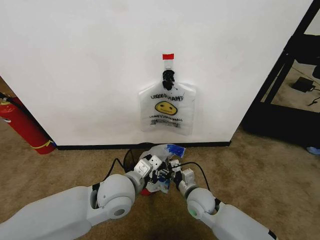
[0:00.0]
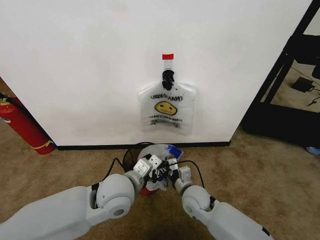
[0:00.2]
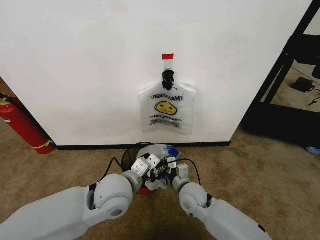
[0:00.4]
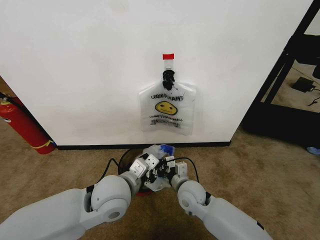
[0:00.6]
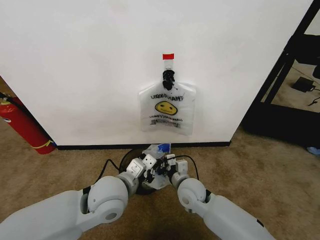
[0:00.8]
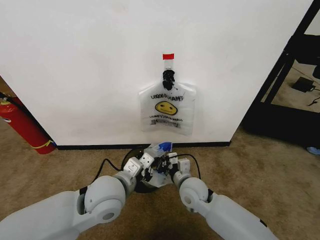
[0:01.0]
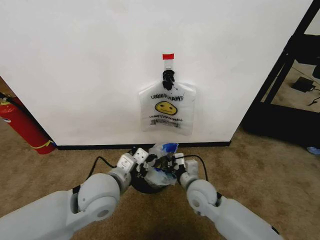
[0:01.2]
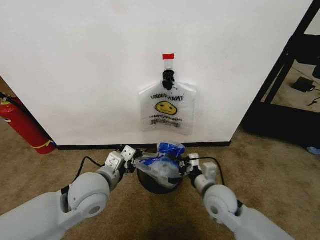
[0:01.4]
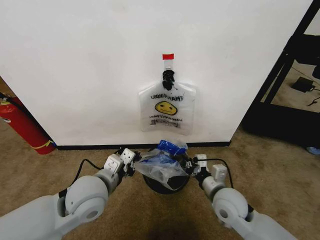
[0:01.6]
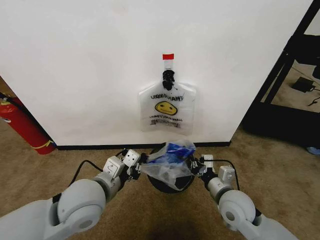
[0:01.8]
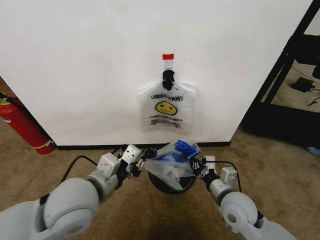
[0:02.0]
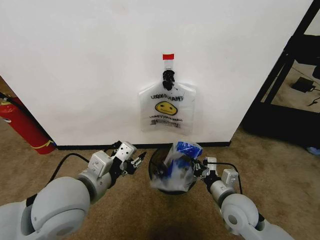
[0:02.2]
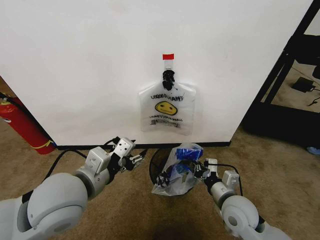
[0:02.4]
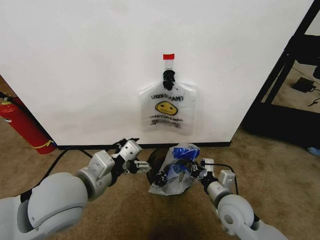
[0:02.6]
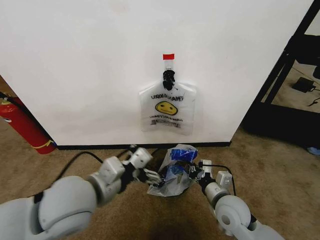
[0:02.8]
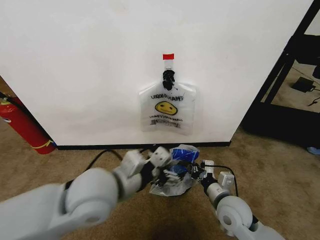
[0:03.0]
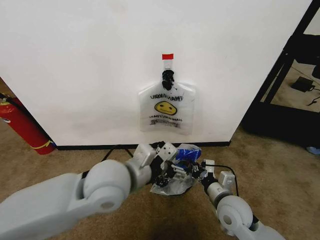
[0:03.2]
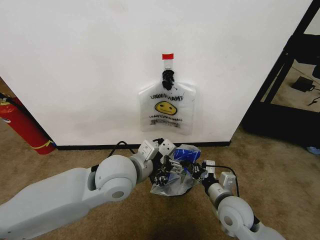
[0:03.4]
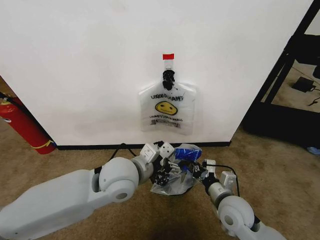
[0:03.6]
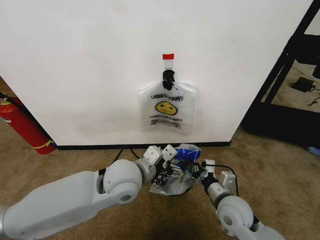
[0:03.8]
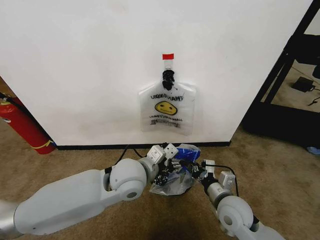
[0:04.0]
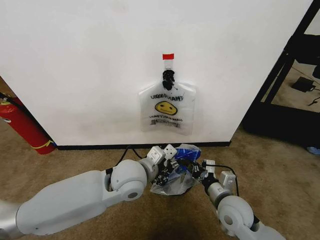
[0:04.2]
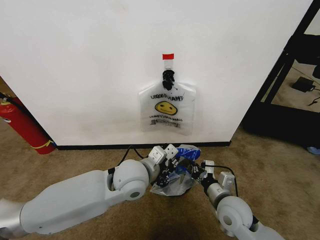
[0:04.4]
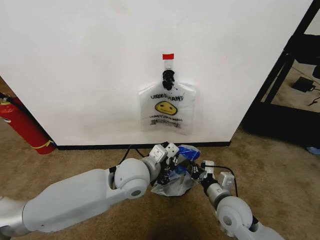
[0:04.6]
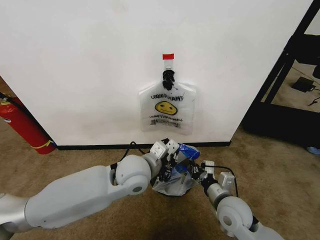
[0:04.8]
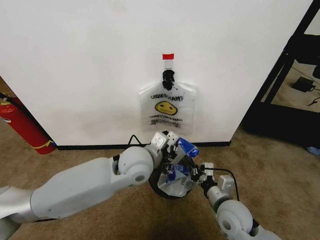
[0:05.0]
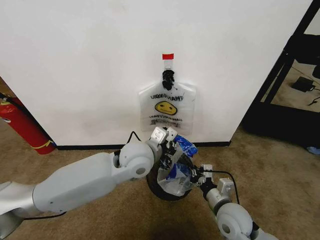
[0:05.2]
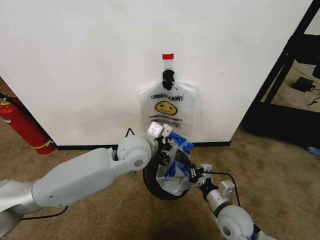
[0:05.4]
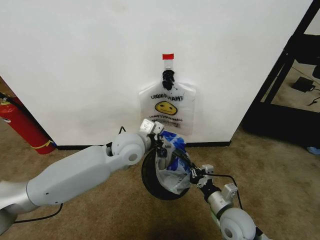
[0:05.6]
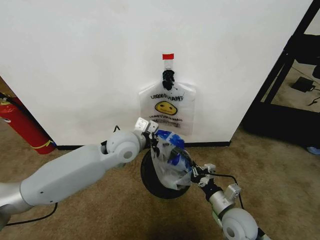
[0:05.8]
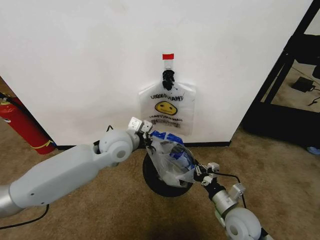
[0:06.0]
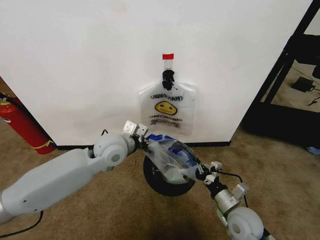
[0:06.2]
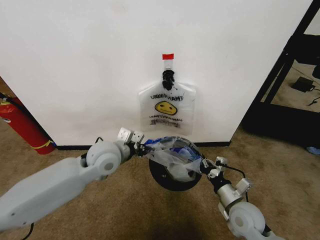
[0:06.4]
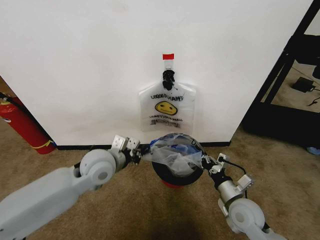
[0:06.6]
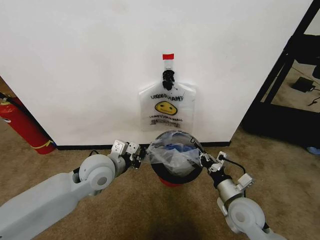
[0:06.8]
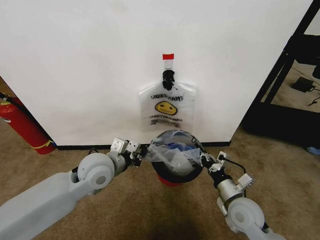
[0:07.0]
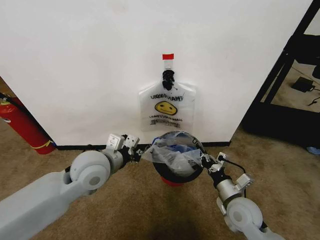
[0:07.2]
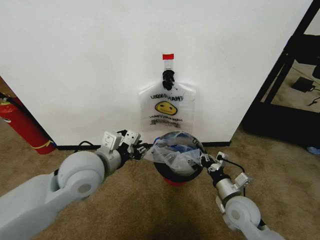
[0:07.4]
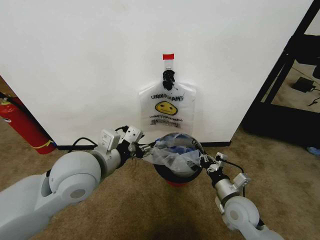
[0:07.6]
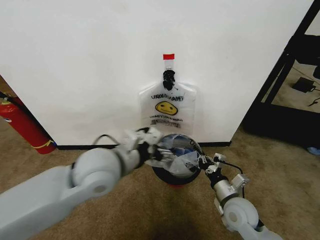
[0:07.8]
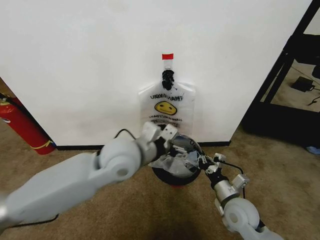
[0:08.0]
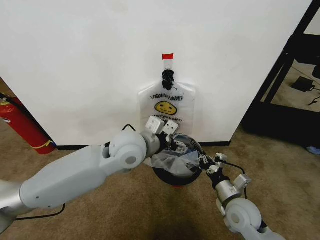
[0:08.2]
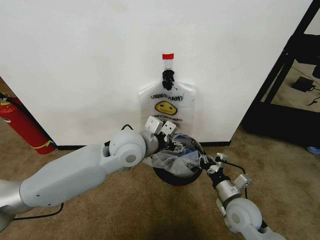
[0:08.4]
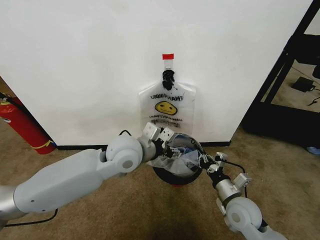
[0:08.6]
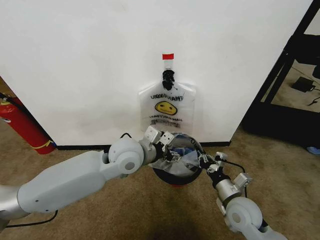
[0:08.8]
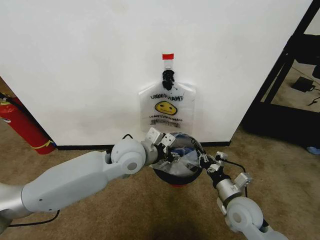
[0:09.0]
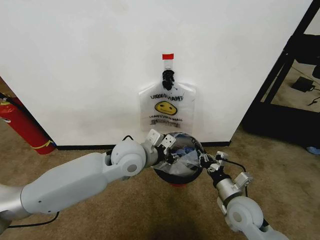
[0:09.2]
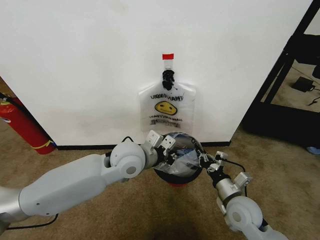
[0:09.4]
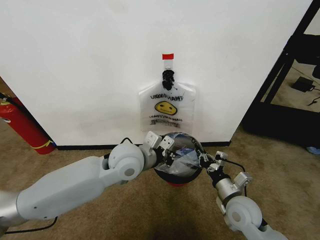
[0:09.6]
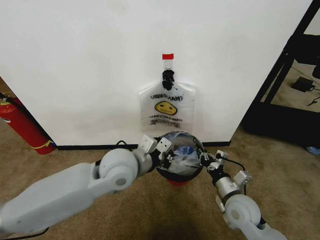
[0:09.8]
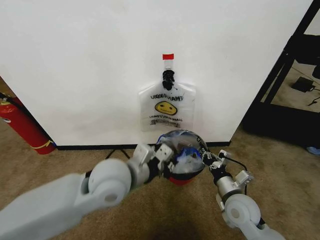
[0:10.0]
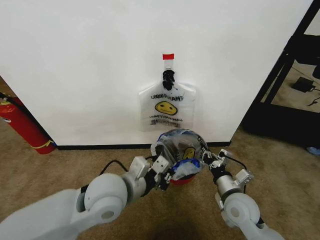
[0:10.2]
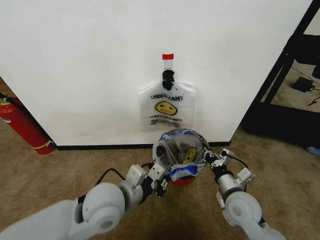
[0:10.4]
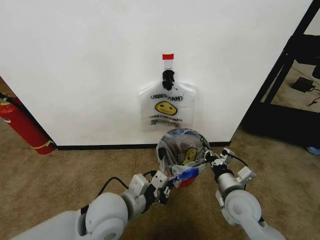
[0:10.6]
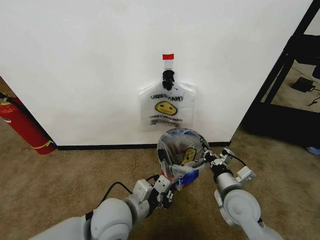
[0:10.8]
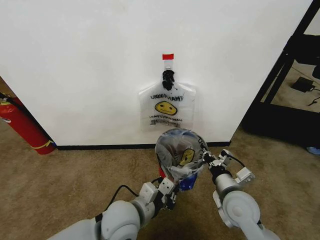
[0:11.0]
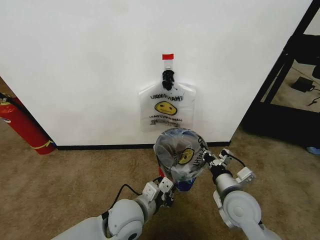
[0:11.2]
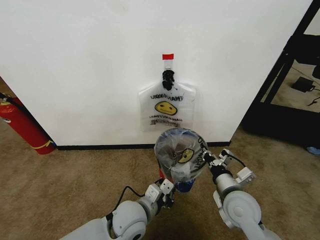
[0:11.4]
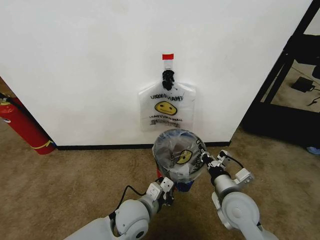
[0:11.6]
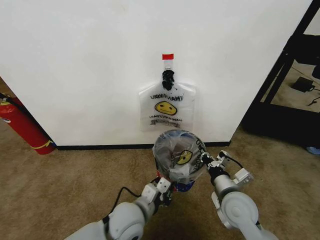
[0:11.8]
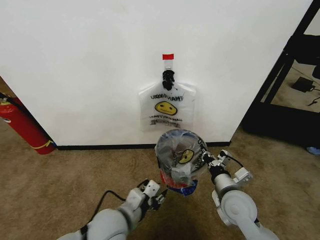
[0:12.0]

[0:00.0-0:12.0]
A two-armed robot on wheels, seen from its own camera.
Task of the whole recording: Pick up the garbage bag from the wall and place it over the trash bin.
0:00.0 to 0:01.6: The left gripper moves to the left, some 5 cm; the right gripper goes about 10 cm upward and to the right, and closes its fingers.
0:01.6 to 0:03.0: The left gripper shifts approximately 5 cm upward, and opens up.
0:03.0 to 0:04.4: The left gripper goes approximately 10 cm downward, forward and to the right, and closes up.
0:04.4 to 0:06.0: The right gripper changes place by about 5 cm. Meanwhile the left gripper heads forward and to the left, covering roughly 10 cm.
0:06.0 to 0:07.6: The left gripper is displaced backward and upward by approximately 15 cm, and opens.
0:07.6 to 0:09.0: The left gripper goes roughly 15 cm forward, to the right and downward, and opens, then closes once more.
0:09.0 to 0:10.4: The left gripper goes some 10 cm backward, and closes.
0:10.4 to 0:12.0: The left gripper travels downward by approximately 5 cm, and opens.

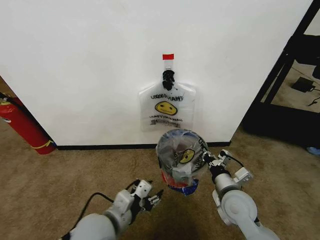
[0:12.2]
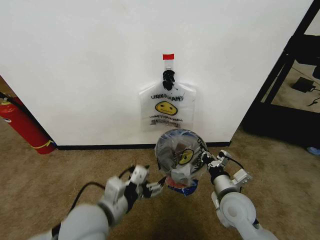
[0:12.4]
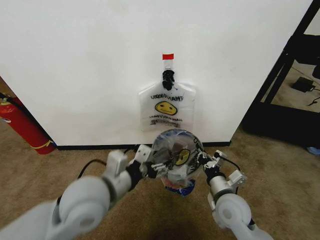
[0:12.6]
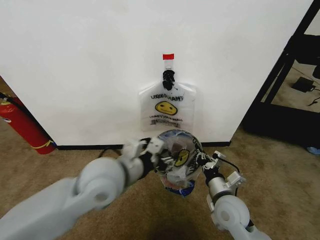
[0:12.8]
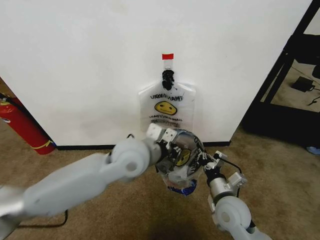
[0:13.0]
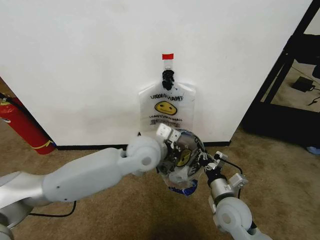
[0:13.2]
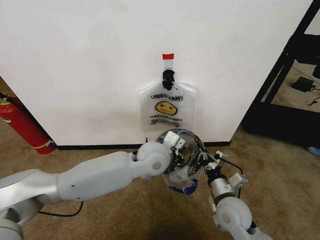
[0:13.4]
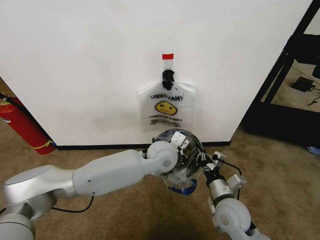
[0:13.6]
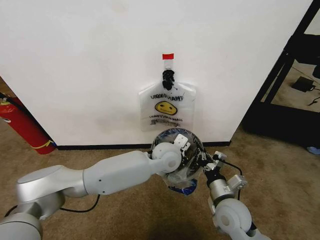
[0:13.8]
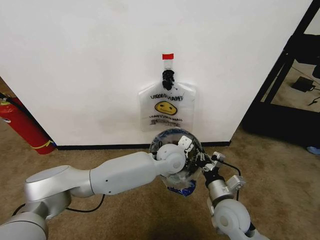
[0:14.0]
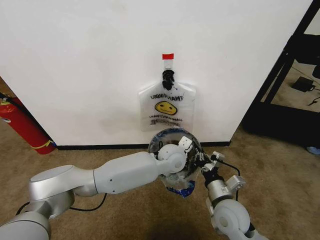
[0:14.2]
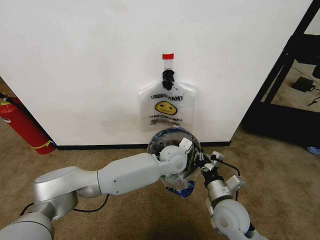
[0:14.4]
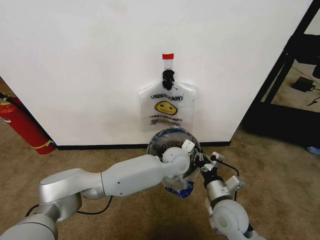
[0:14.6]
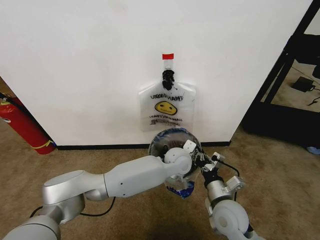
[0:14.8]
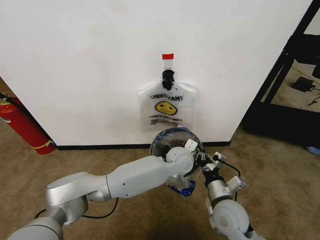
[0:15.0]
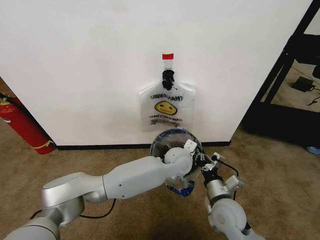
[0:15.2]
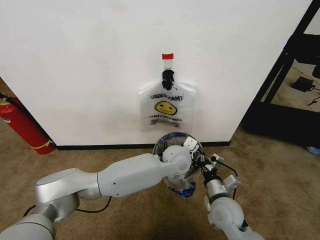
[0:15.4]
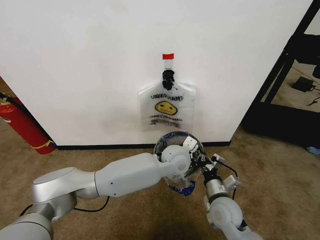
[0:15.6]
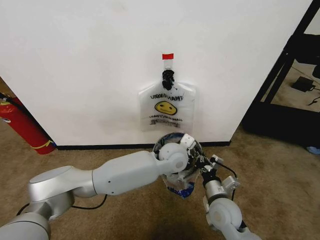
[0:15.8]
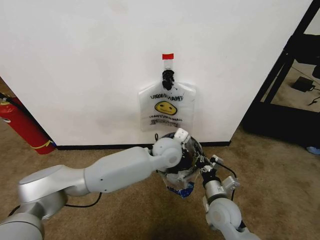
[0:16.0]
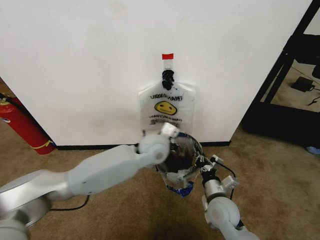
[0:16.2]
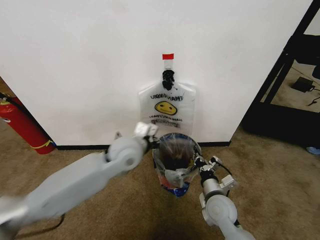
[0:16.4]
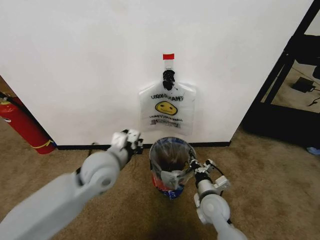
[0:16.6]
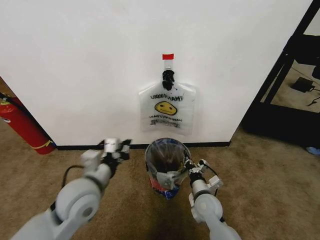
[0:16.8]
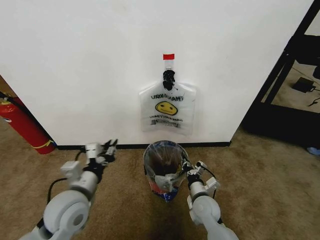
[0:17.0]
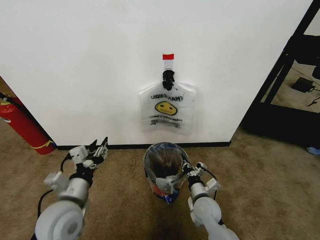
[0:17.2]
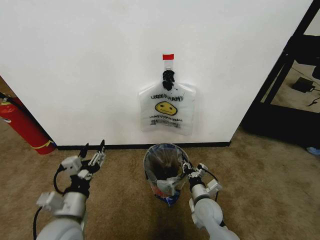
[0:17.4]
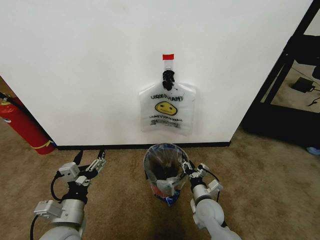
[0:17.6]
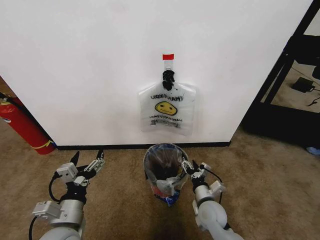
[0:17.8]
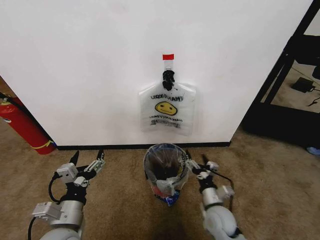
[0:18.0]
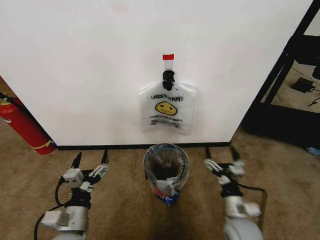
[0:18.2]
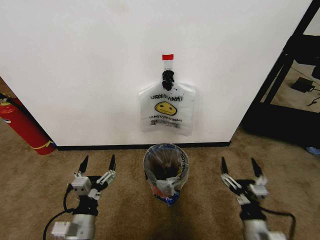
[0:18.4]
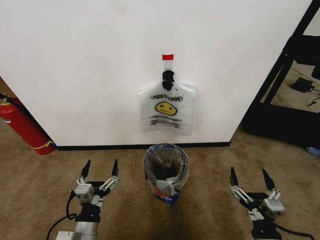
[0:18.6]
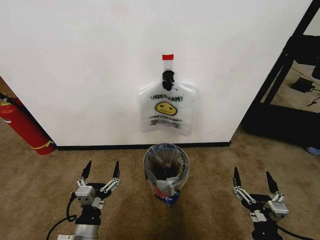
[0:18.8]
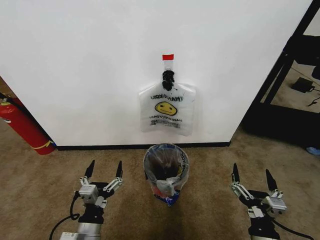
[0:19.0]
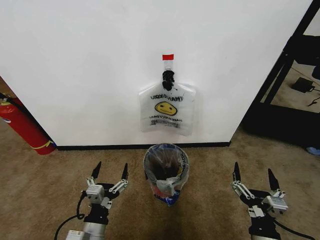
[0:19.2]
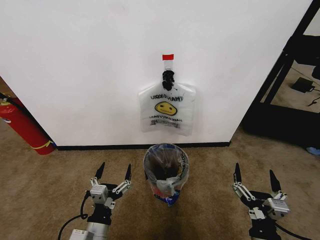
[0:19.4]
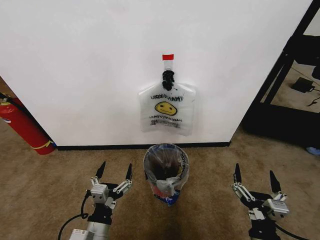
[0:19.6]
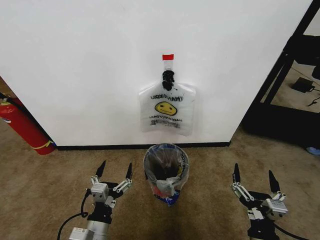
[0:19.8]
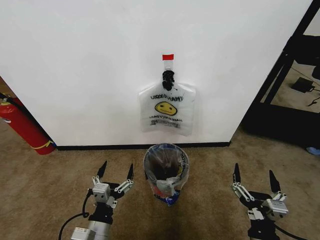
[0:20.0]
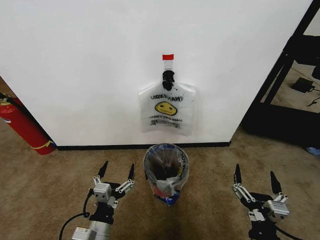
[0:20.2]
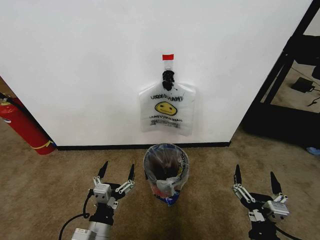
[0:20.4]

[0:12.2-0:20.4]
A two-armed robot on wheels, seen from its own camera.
Task of the whole recording: Pick up the garbage bag from the wall and place it over the trash bin.
0:12.2 to 0:13.8: The left gripper goes about 30 cm forward and to the right, and closes up.
0:15.4 to 0:17.2: The right gripper goes roughly 5 cm downward. Meanwhile the left gripper moves to the left and backward, roughly 35 cm, and opens its fingers.
0:17.2 to 0:18.8: The left gripper travels downward and backward by approximately 10 cm, and opens up; the right gripper shifts approximately 25 cm backward, to the right and upward, and opens its fingers.
0:18.8 to 0:20.4: There are only small adjustments of the grippers.
